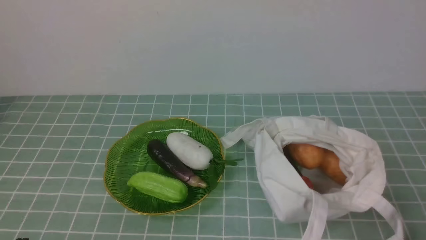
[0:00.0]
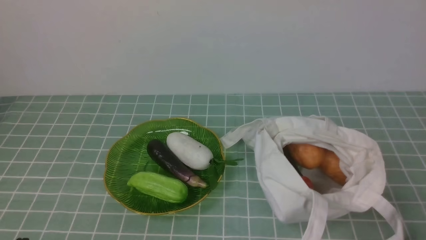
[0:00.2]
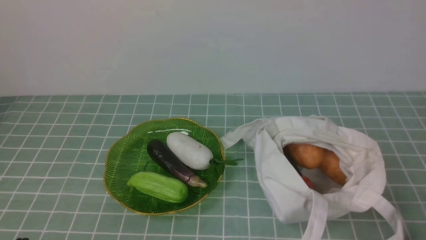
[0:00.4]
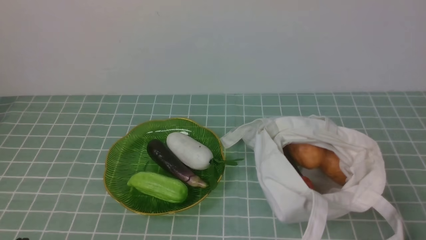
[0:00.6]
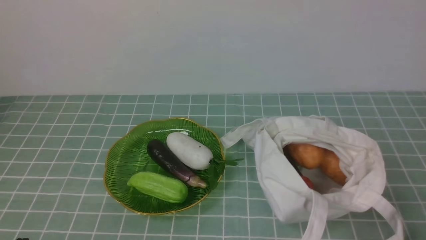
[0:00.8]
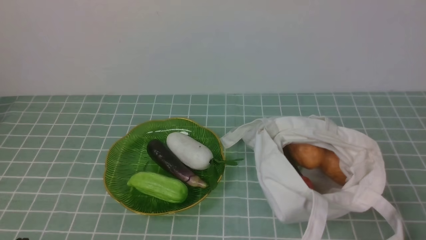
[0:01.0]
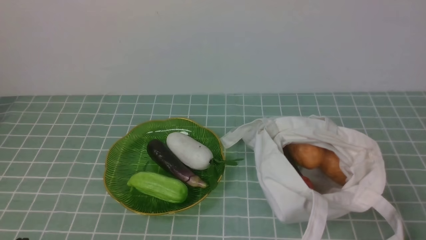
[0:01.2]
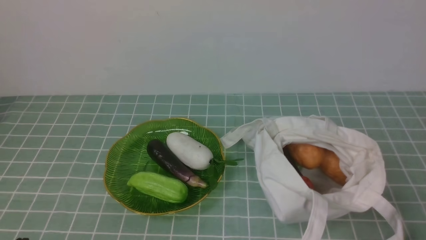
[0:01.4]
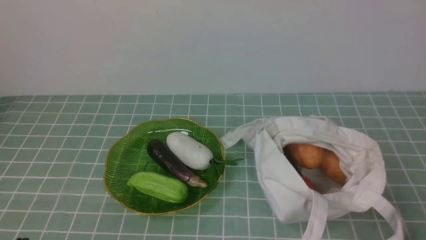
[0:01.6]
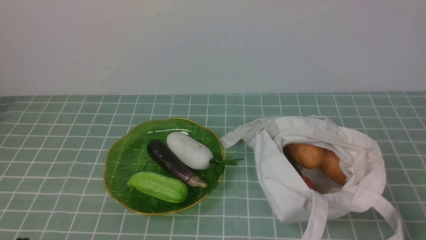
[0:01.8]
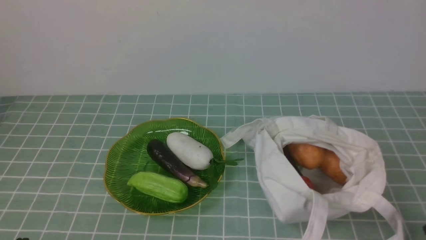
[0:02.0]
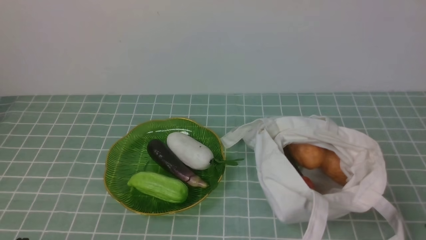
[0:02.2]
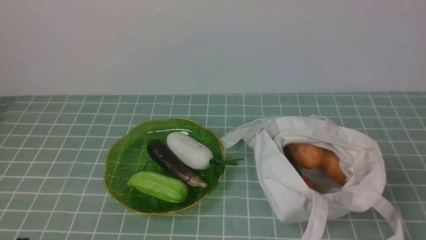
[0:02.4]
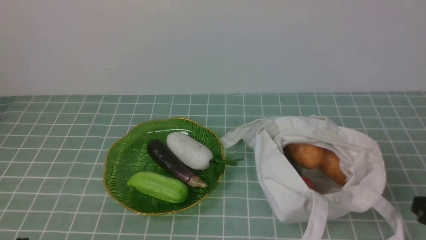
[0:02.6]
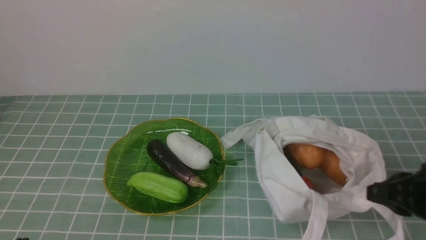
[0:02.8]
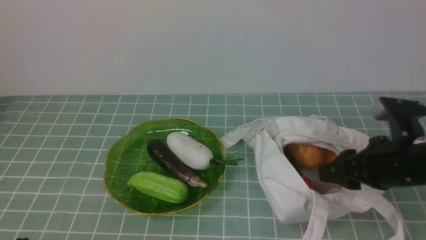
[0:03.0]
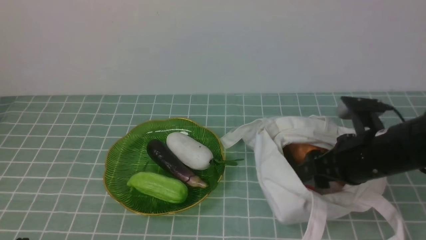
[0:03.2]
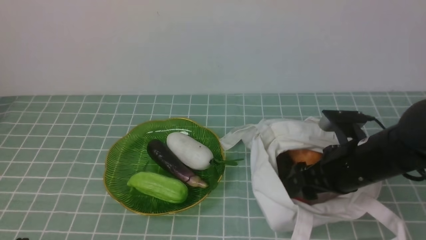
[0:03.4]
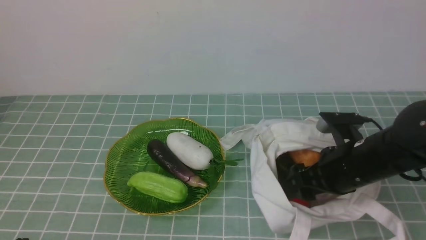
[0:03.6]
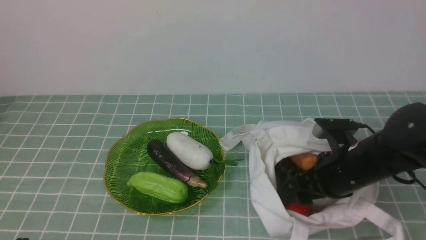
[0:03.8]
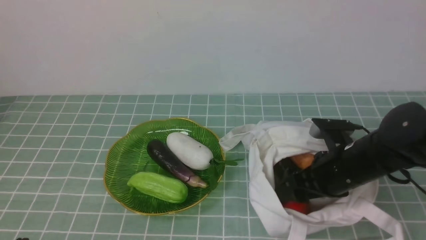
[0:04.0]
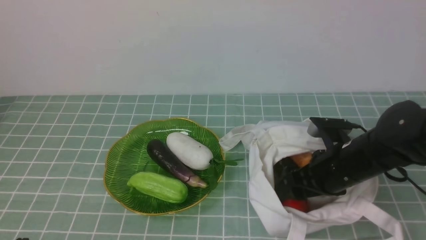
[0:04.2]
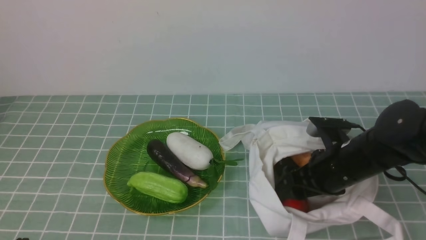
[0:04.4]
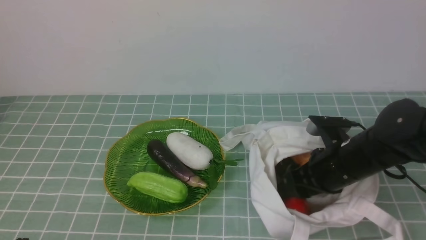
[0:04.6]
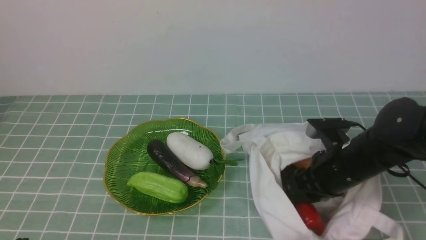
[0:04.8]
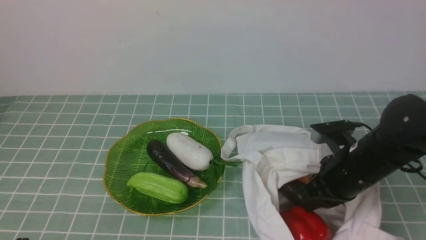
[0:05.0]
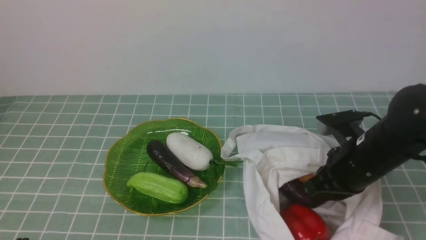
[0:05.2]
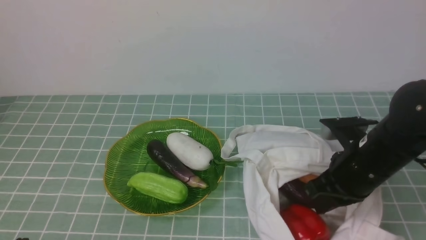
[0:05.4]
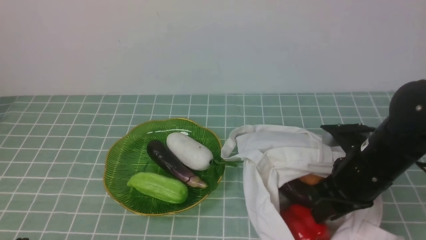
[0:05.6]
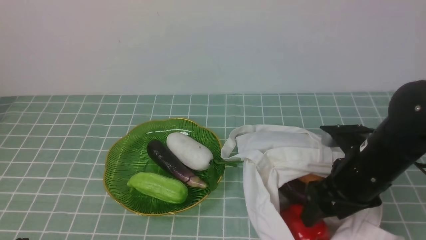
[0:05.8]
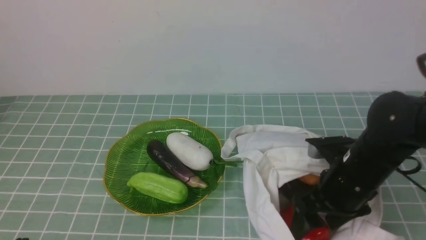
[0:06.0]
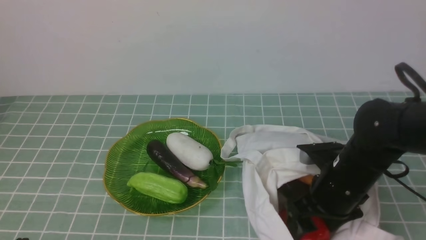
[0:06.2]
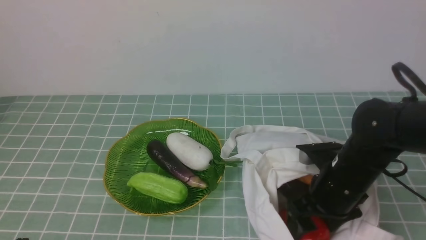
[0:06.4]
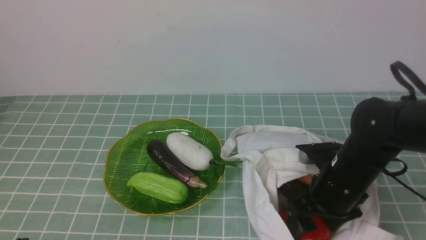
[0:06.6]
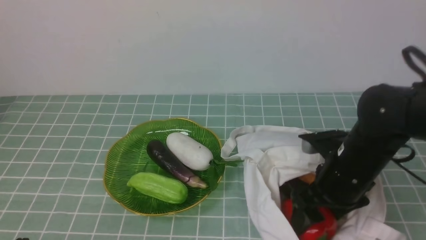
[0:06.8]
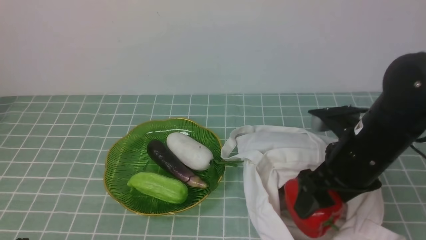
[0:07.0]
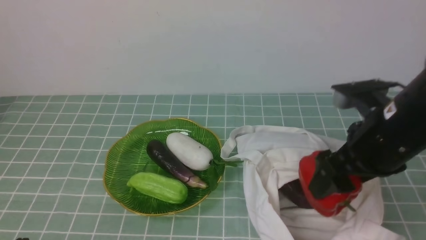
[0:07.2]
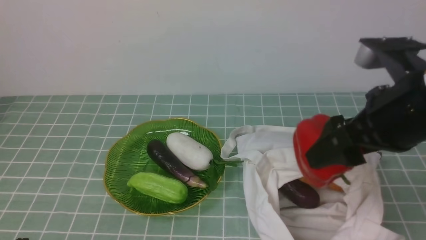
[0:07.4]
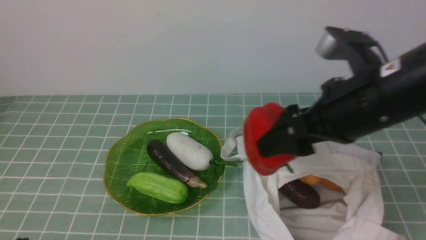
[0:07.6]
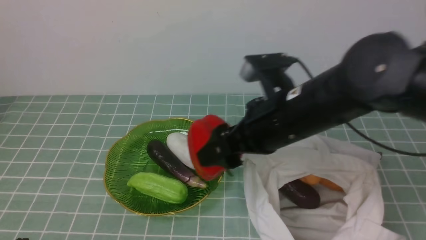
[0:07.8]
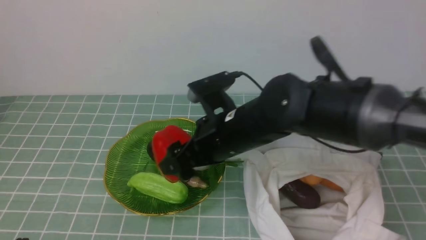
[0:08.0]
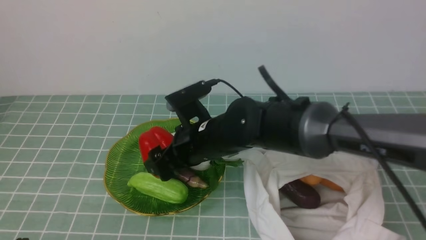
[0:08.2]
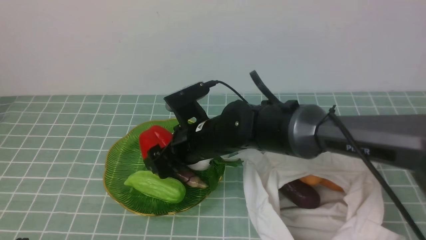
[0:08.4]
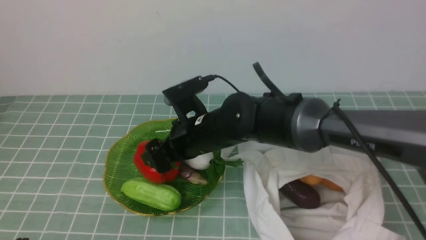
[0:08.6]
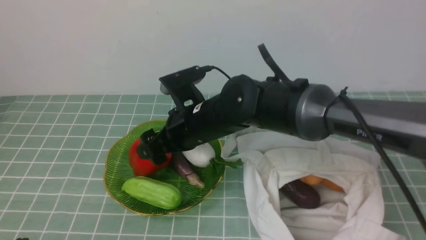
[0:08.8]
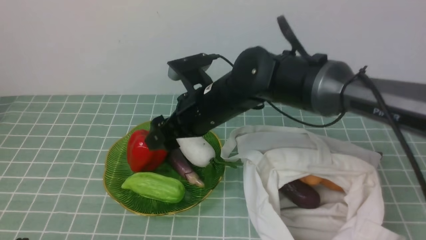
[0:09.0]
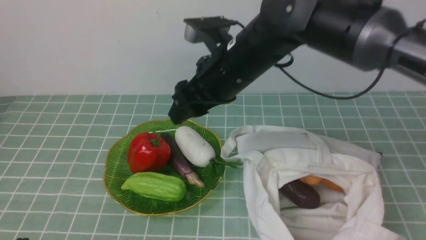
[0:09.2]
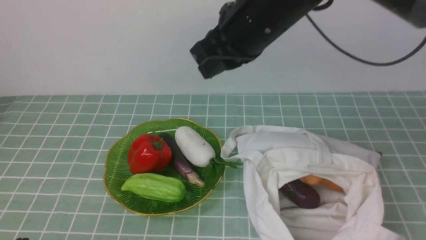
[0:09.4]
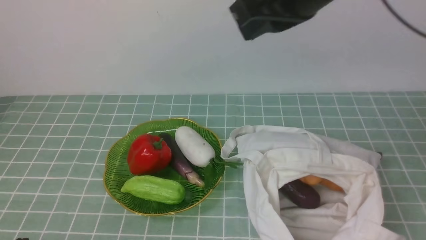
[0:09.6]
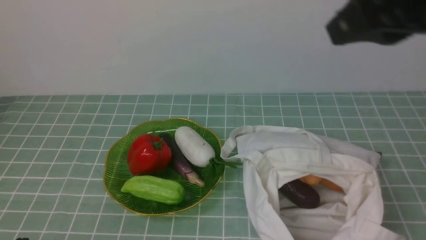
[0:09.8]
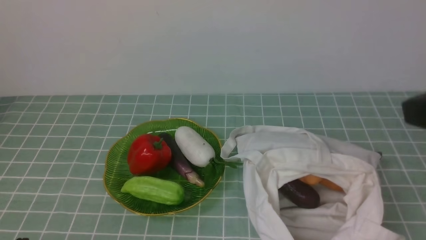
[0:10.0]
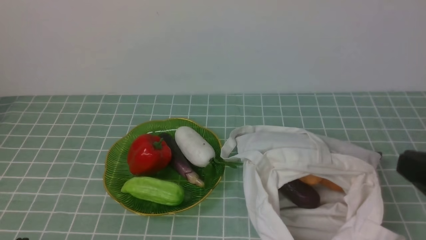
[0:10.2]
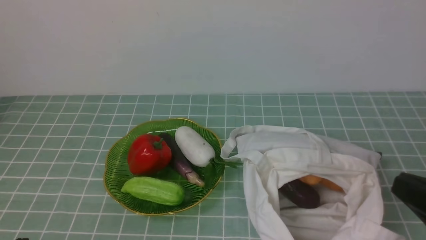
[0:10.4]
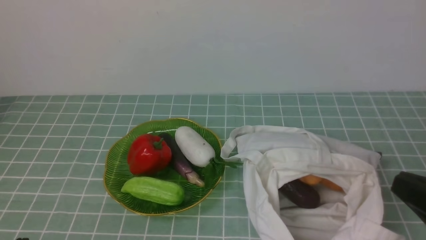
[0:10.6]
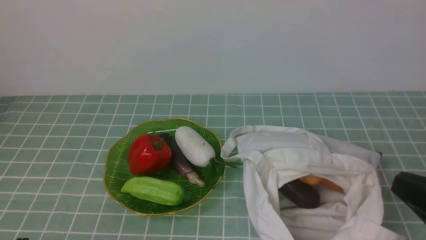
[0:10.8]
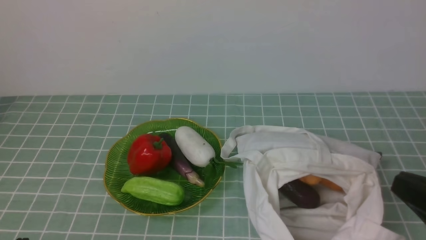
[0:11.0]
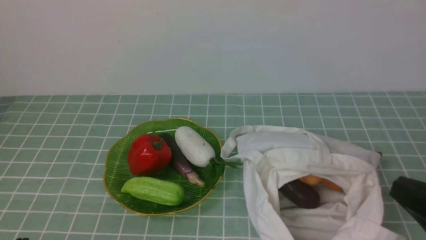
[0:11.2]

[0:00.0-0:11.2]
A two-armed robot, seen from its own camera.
Task of the whole recording: take vegetables from cloth bag on blue coffee tablecloth place on plate.
Step, 0:00.0 to 0:06.4: Grasp the bell pepper with right gripper.
Step, 0:06.6 to 0:09.0: Place the bell pepper on the plate with right gripper.
0:01.6 to 0:03.2: The right gripper is displaced forward and to the left by some 20 cm, and opens.
0:03.2 to 0:04.8: The right gripper closes.
0:04.8 to 0:06.4: The right gripper opens its fingers.
0:06.4 to 0:08.0: The right gripper heads to the left and upward, covering about 15 cm.
0:08.0 to 0:09.6: The right gripper moves upward and to the right, roughly 25 cm, and closes its fingers.
0:09.6 to 0:11.2: The right gripper goes approximately 30 cm backward, downward and to the right.

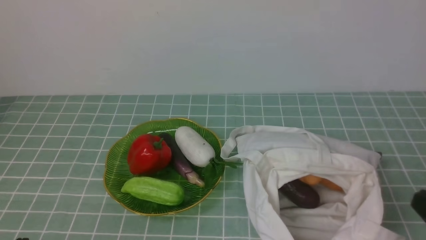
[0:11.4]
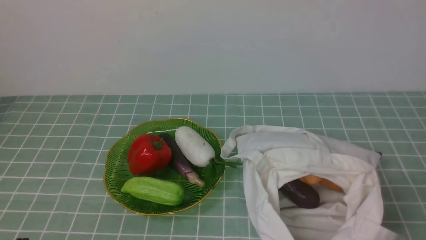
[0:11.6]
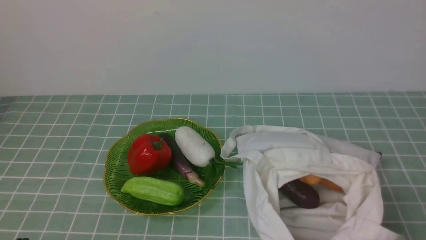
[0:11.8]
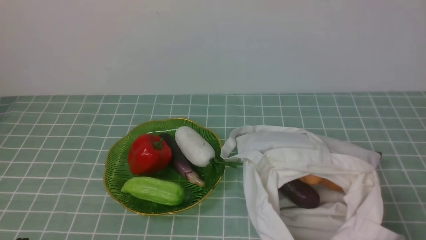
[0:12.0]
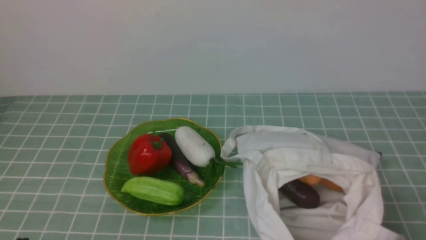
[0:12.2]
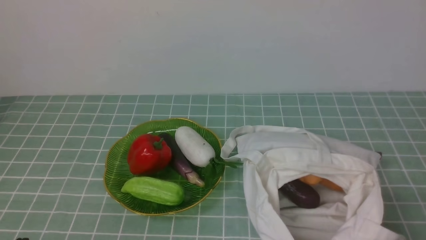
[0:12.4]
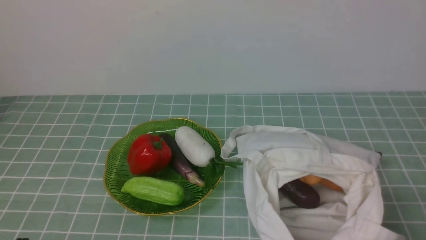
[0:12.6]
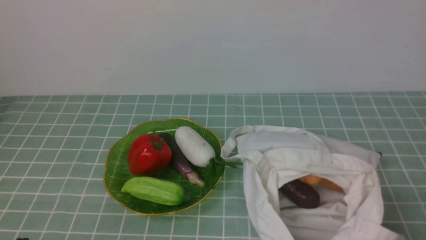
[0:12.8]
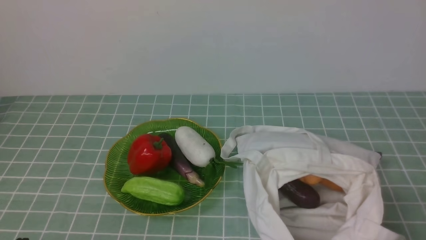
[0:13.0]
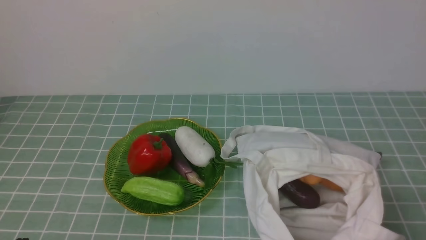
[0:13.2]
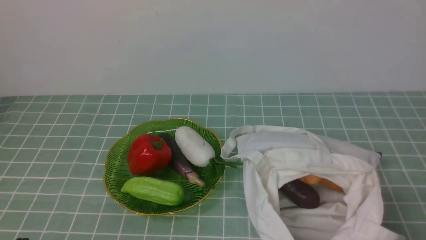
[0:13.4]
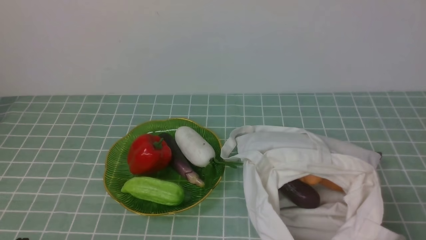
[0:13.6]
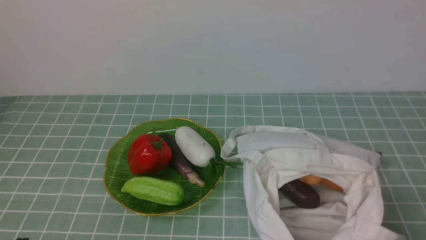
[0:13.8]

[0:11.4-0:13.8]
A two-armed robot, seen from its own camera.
Task of the whole recording: take vegetables from cloth bag on blue coffee tablecloth place on plate.
0:12.6 to 0:13.8: The two grippers keep their place.

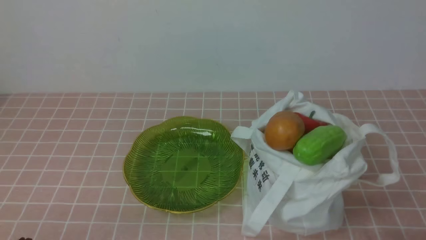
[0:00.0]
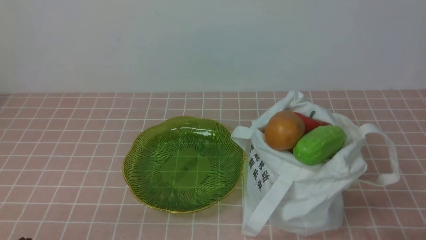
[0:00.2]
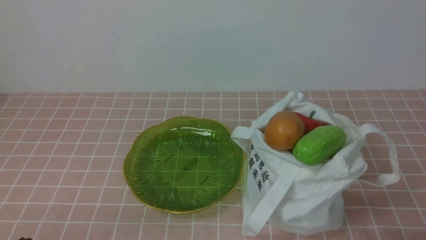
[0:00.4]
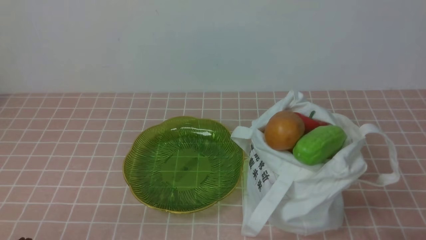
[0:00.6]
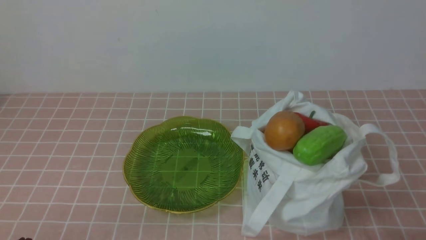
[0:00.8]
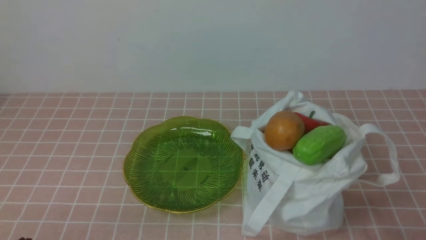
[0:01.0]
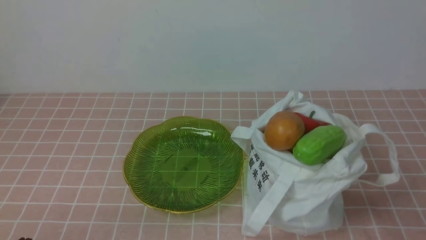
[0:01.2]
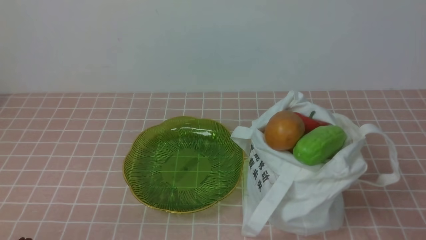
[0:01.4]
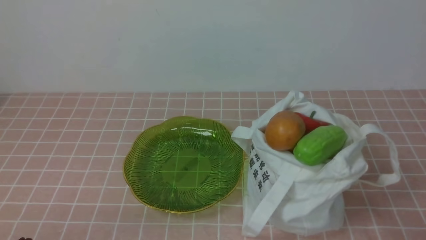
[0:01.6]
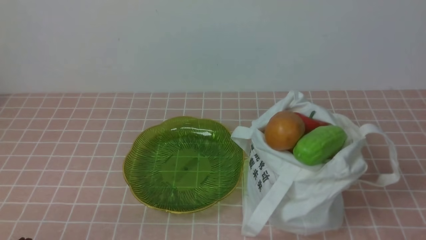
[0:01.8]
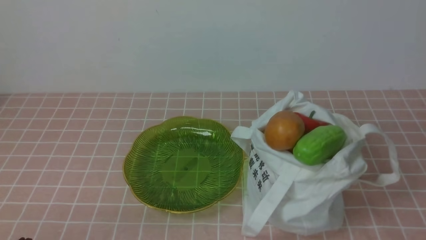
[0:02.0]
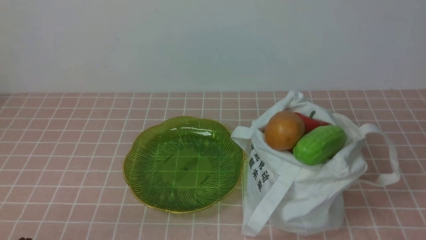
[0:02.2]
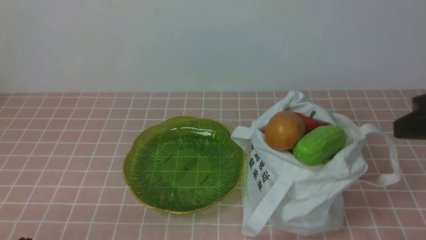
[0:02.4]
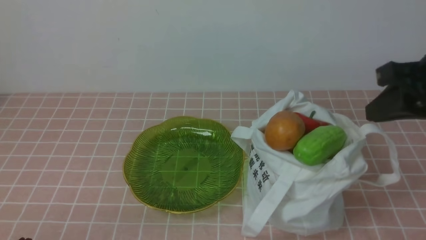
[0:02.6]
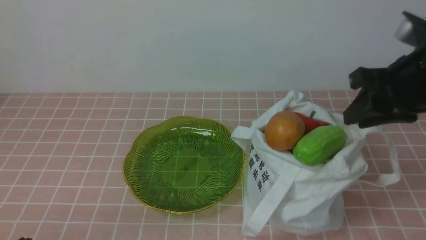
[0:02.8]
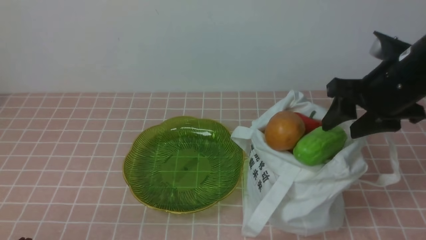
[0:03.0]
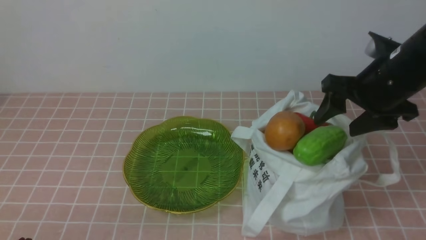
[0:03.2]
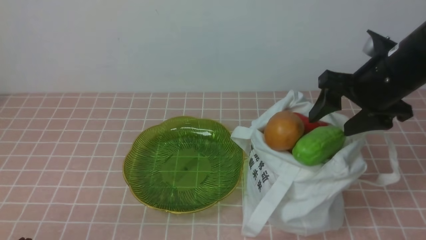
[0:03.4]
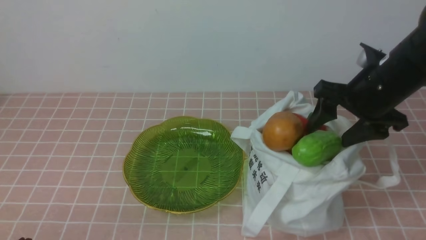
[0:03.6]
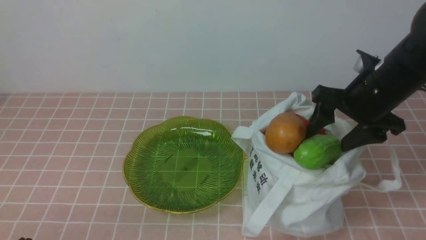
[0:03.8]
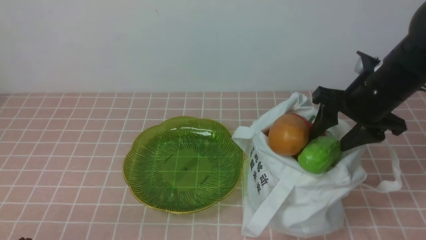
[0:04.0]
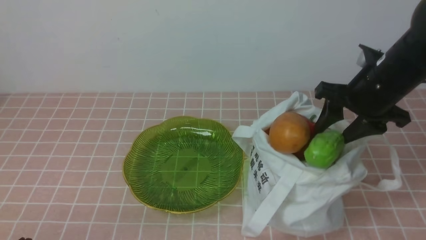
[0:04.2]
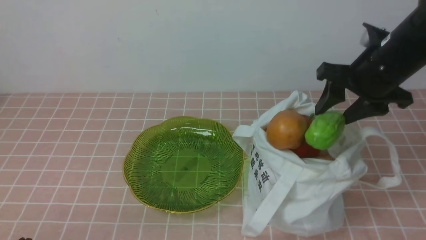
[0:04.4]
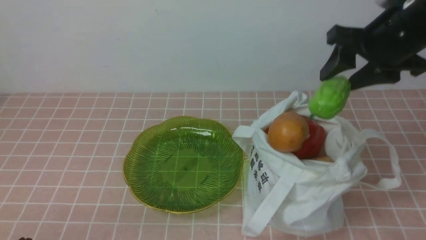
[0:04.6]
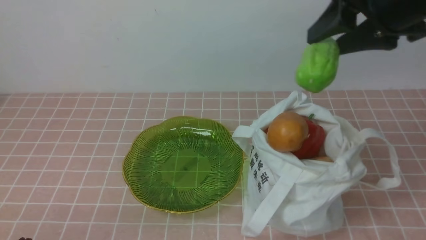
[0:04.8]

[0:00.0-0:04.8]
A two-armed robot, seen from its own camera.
Task of the whole recording: take vegetables from bag on pink coffee tablecloth place on plate.
Step, 0:00.0 to 0:04.0: Grasp the bitter melon with right gripper.
0:01.6 to 0:03.2: The right gripper travels forward by approximately 25 cm, and opens its fingers.
0:03.2 to 0:04.8: The right gripper shifts about 10 cm upward and to the left.
